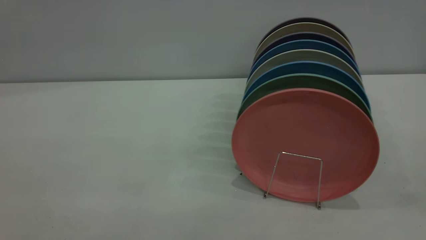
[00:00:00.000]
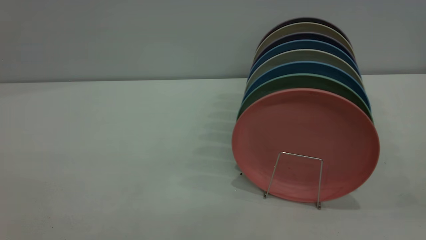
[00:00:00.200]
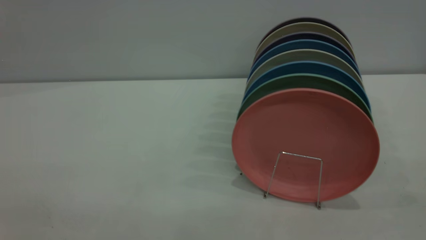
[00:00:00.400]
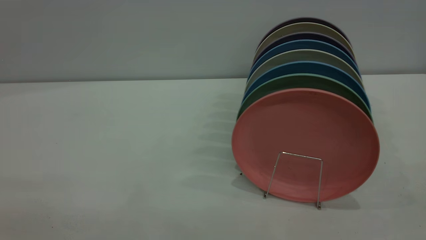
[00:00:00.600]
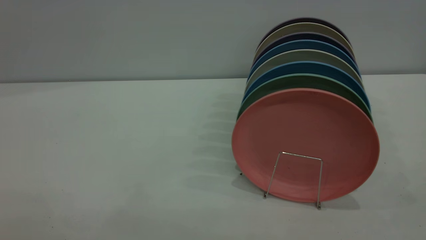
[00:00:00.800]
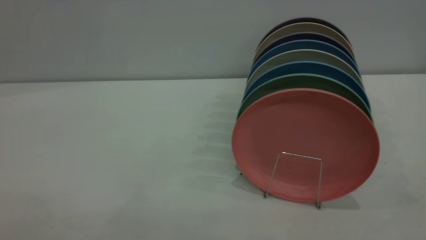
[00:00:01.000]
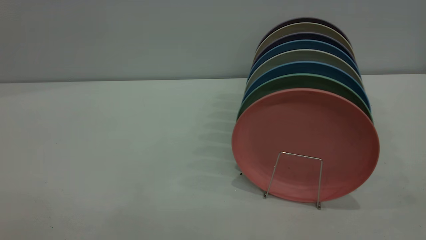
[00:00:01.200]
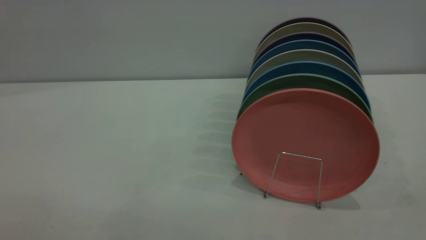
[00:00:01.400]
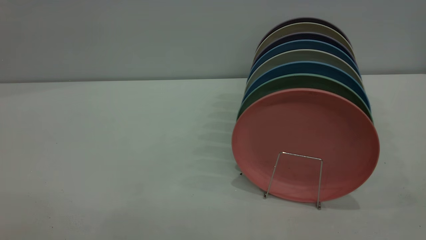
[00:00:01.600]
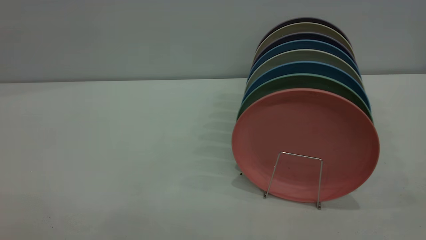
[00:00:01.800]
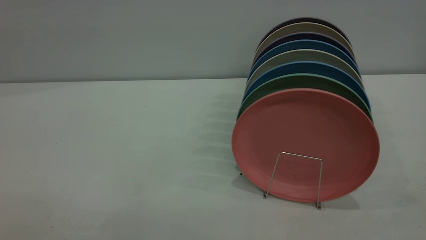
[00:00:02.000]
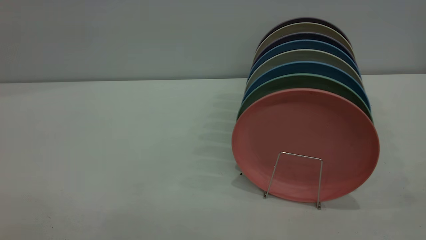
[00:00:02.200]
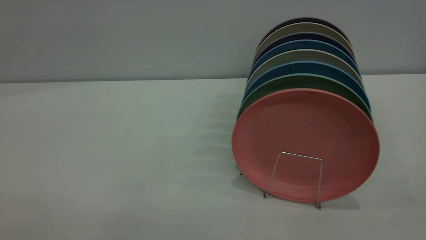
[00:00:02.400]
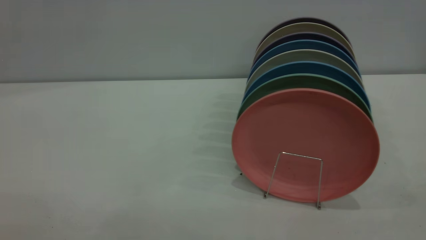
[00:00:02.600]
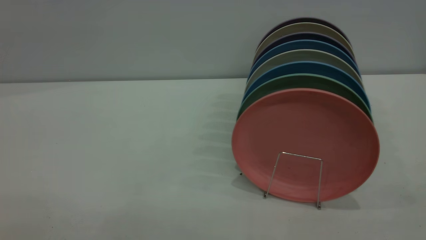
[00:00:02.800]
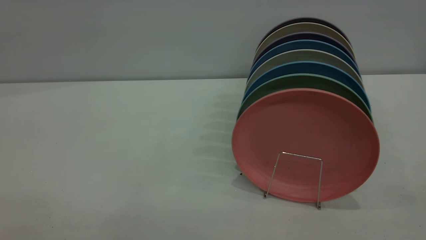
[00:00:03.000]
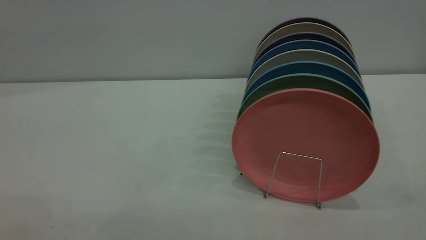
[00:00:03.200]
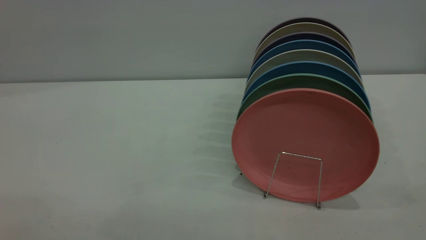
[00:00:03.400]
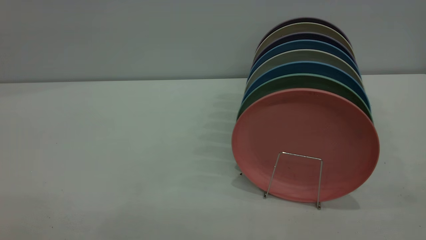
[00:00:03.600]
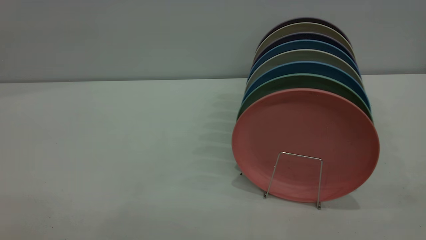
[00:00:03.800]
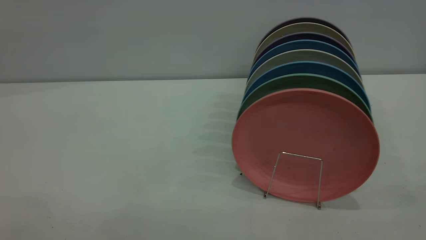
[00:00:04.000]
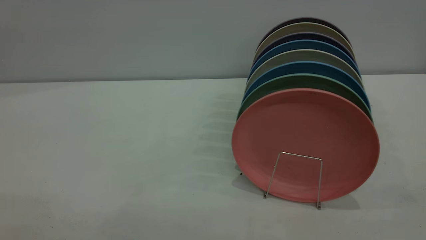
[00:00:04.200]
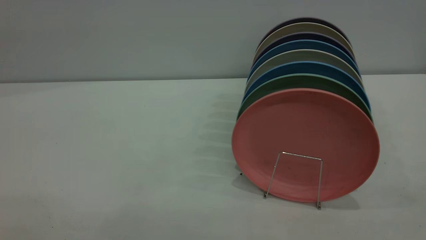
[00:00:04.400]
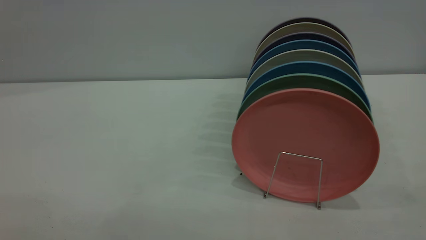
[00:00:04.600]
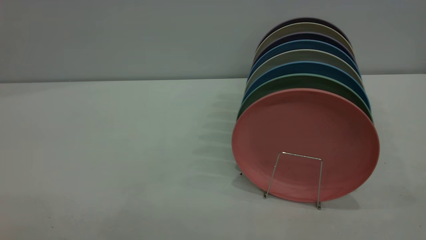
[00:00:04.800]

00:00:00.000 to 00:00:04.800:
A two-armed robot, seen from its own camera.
Task of the whole recording: put the plate on the plate rack.
00:00:03.200 to 00:00:04.800: Both grippers stay about where they are.

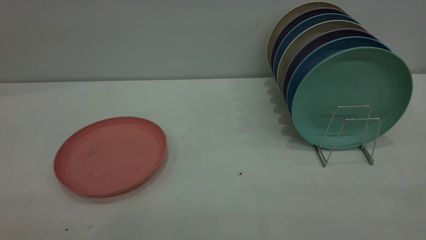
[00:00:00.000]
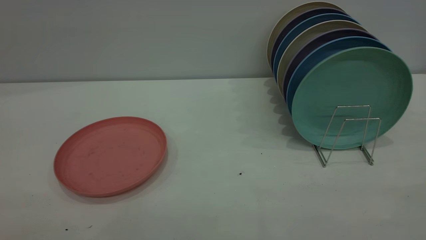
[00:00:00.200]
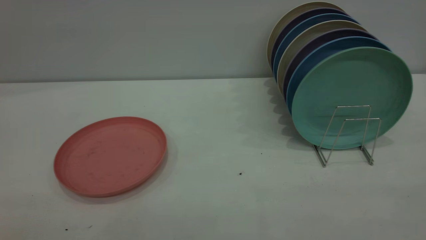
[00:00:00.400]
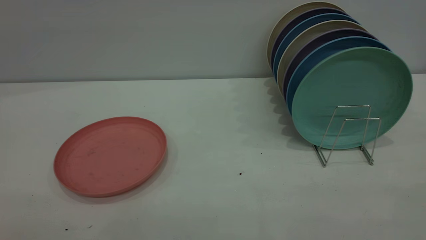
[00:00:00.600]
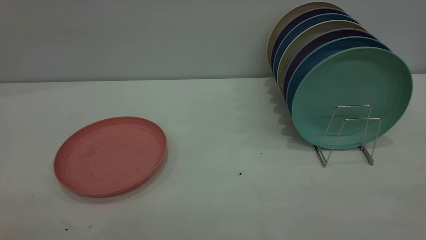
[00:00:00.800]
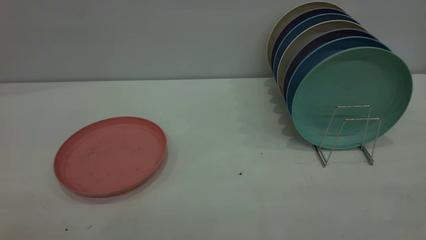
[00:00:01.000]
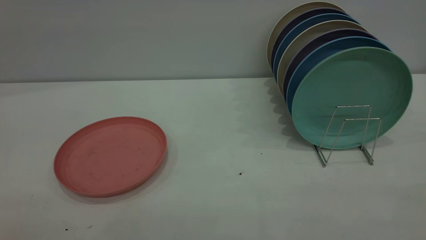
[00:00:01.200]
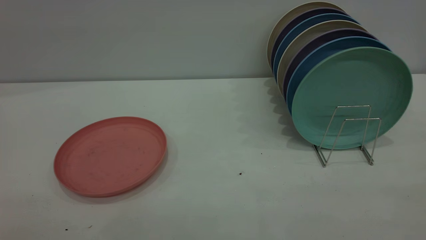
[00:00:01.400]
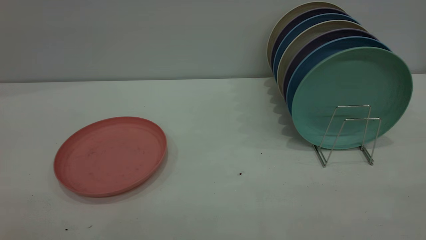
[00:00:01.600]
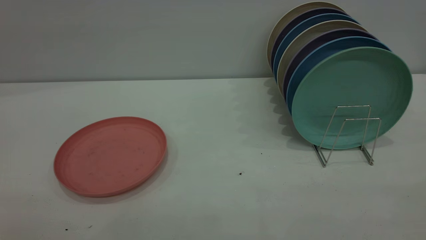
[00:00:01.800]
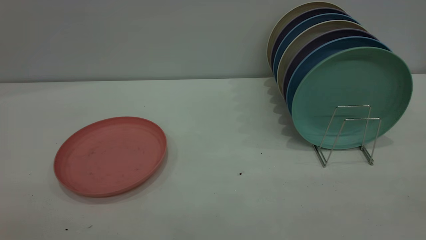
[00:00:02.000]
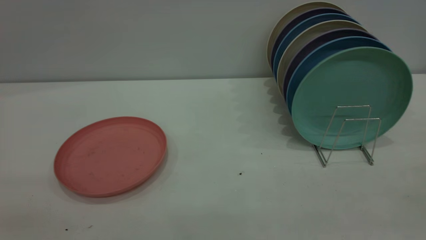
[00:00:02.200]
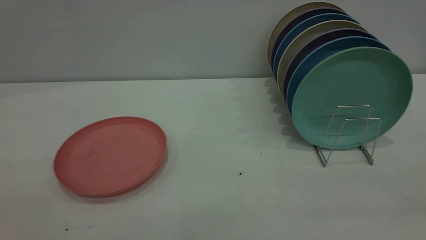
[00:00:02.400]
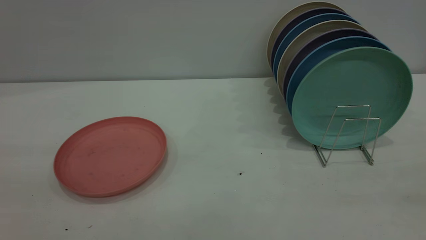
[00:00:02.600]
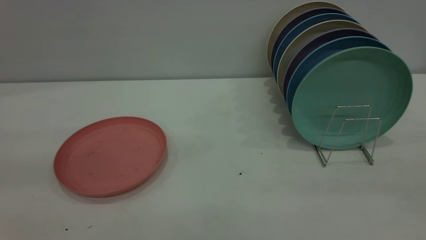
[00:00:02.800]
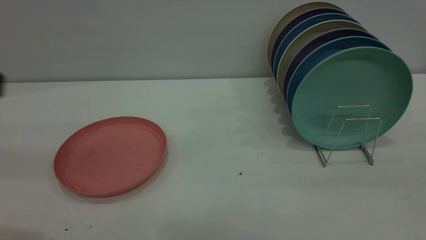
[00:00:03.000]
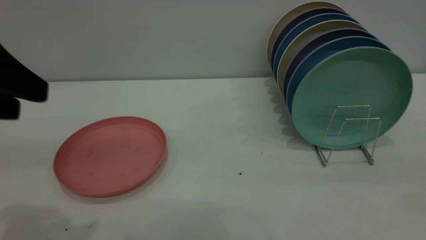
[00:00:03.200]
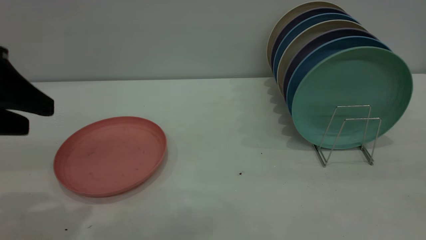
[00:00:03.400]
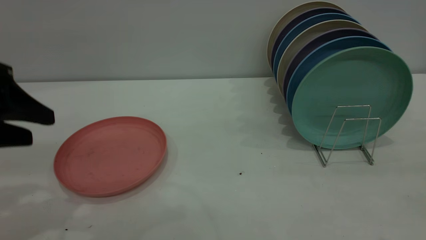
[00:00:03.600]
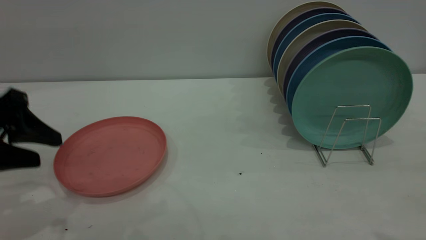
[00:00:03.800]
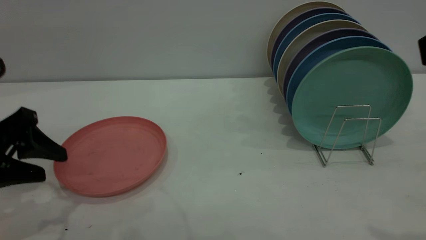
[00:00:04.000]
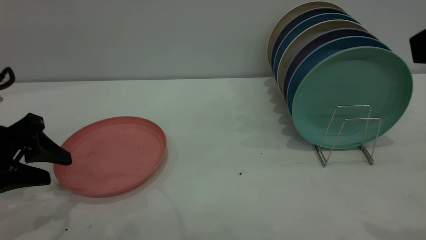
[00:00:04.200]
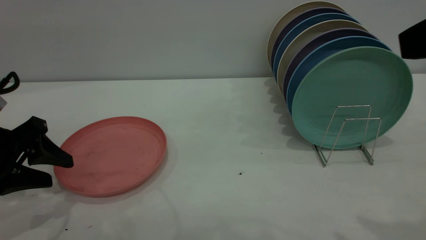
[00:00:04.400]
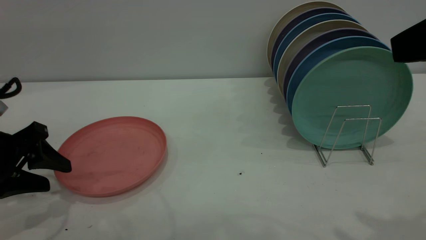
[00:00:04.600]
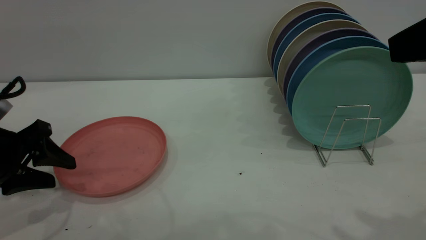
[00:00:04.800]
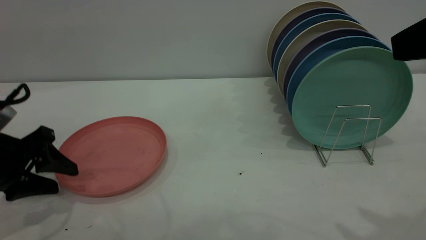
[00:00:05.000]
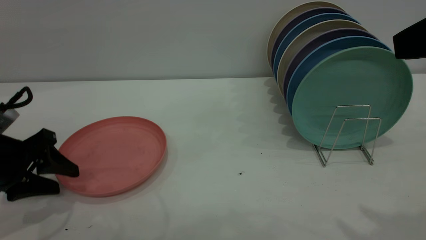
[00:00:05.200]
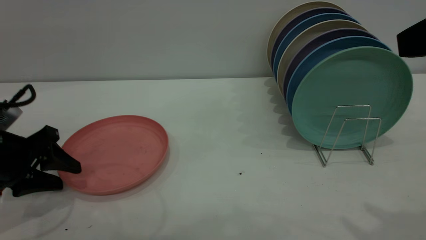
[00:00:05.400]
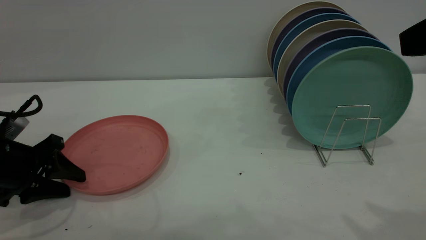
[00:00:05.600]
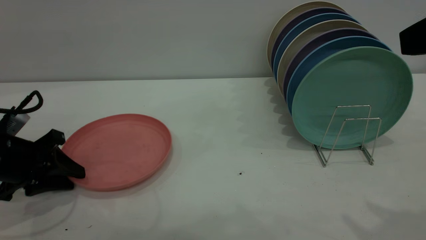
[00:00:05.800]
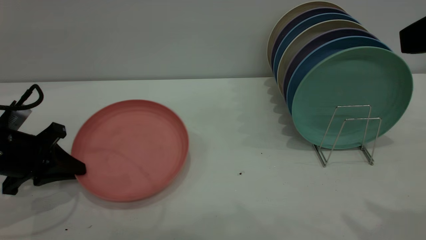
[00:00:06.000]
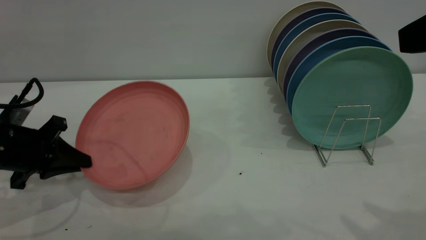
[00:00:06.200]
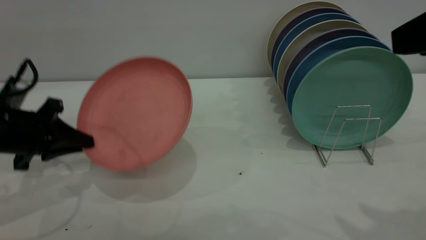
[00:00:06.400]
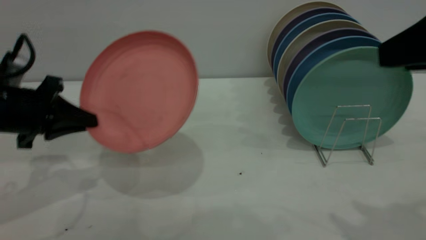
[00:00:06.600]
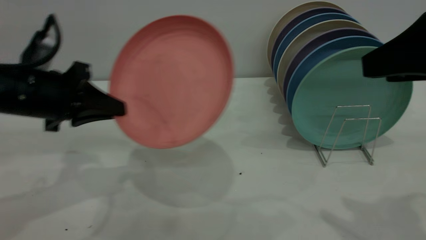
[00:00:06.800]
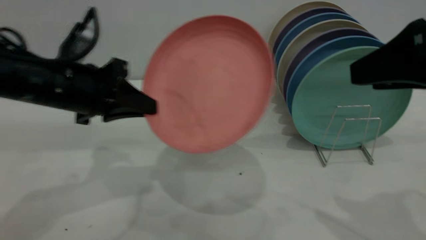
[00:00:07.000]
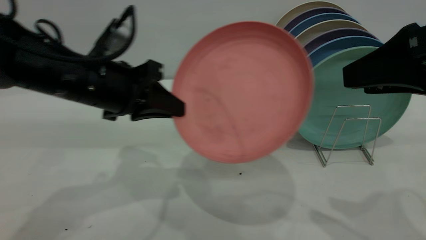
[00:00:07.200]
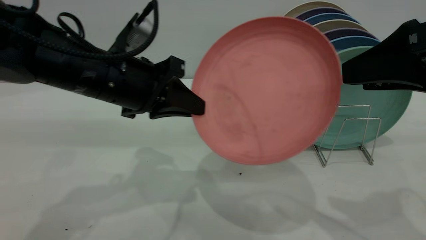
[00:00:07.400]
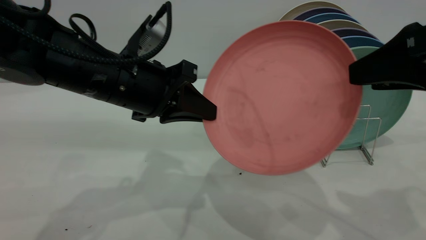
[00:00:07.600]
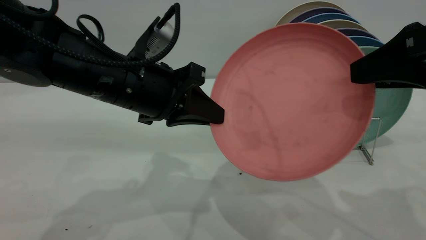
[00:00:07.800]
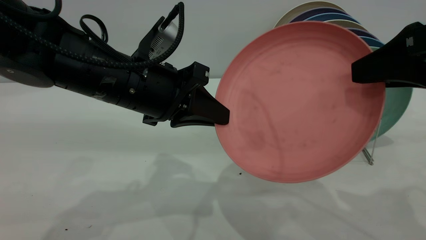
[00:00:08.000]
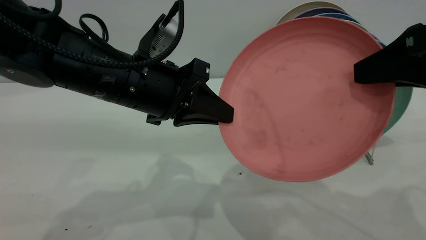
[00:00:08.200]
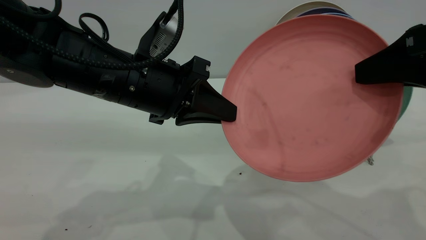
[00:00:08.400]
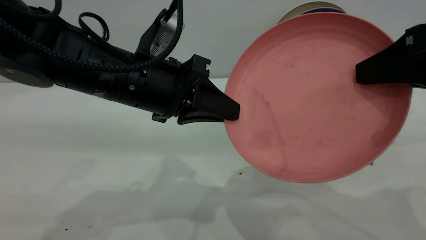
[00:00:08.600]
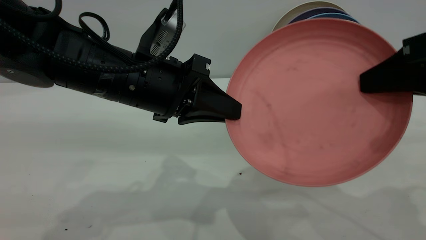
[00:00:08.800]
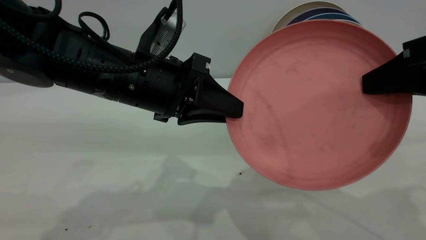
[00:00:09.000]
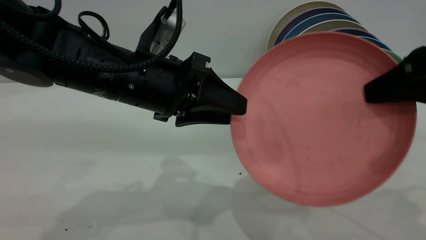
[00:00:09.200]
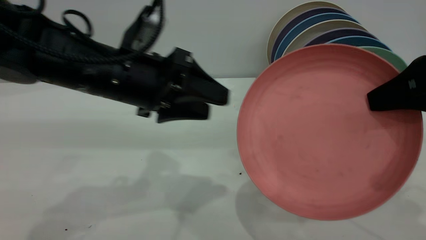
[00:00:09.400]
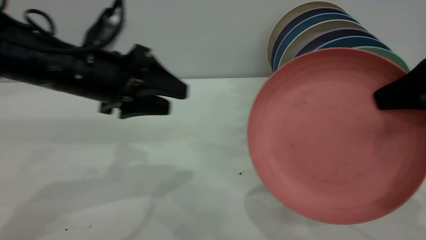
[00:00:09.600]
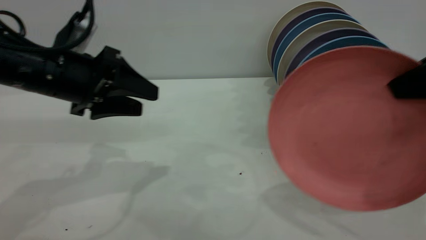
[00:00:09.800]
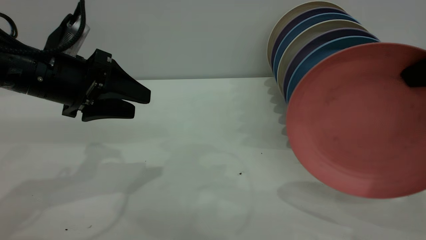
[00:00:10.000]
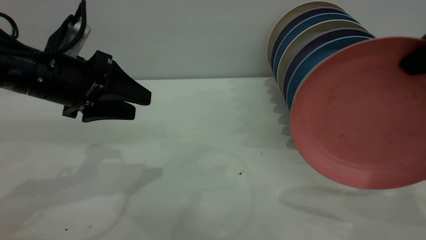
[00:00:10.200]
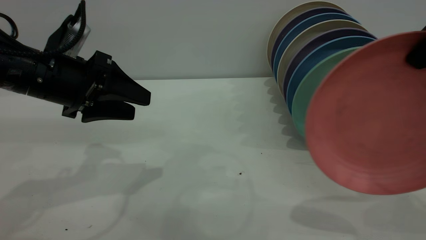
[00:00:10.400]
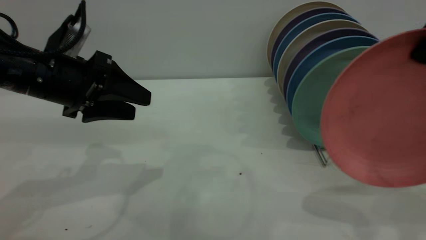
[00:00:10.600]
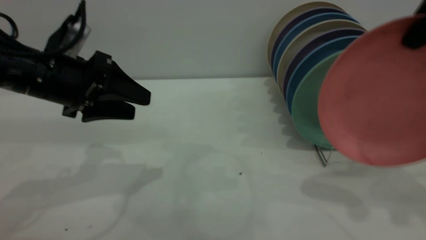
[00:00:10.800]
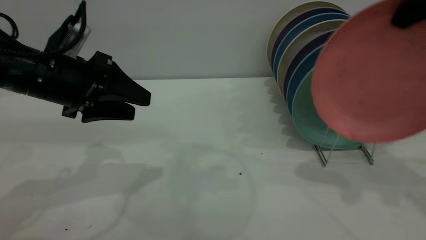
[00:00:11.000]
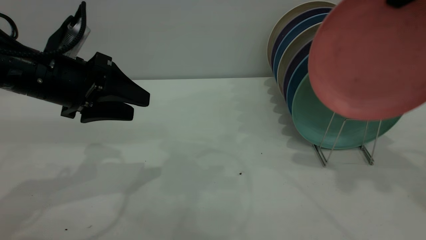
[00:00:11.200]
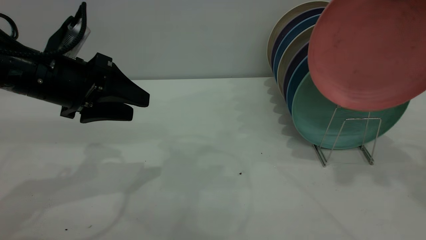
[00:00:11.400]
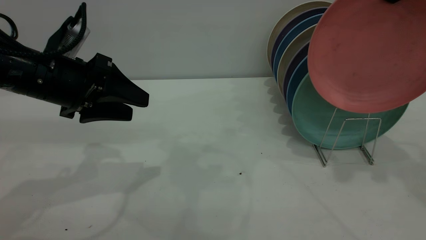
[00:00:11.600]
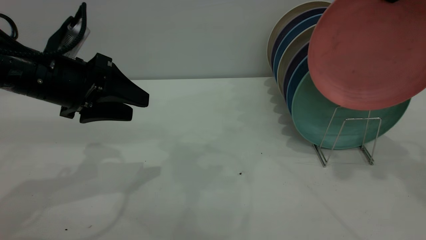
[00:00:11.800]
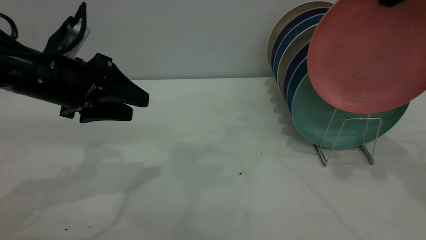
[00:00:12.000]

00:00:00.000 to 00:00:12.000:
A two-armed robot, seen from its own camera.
Task of the whole recording: the left gripper grasp the pink plate, the left gripper pass the pink plate to the right gripper, and the right gripper place the pink plate on the plate rack.
Step, 00:00:00.000 to 00:00:06.200: Pick up the plate with the left gripper.
Step, 00:00:06.400 to 00:00:09.400: Pass the plate from the left gripper to the right gripper.
00:00:00.000 to 00:00:01.600: Both grippers stay about where they are.
00:00:03.000 to 00:00:04.400: The left gripper is displaced downward and forward by about 20 cm, while the right gripper heads forward, covering some 5 cm.
00:00:04.400 to 00:00:06.000: The left gripper ends up about 5 cm from where it was, and closes its fingers.
00:00:06.000 to 00:00:07.600: The left gripper moves to the right and upward, approximately 20 cm, while the right gripper travels downward by approximately 5 cm.
00:00:07.600 to 00:00:09.000: The left gripper opens its fingers. The right gripper closes up.
00:00:09.000 to 00:00:10.400: The right gripper travels upward by some 5 cm. Meanwhile the left gripper heads to the left, covering some 15 cm, and opens up.
00:00:10.400 to 00:00:12.000: The right gripper is displaced forward by some 10 cm.
